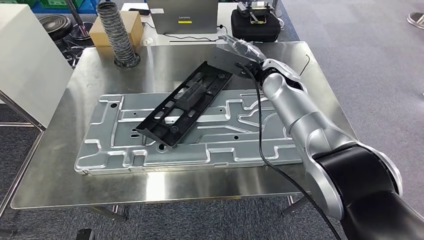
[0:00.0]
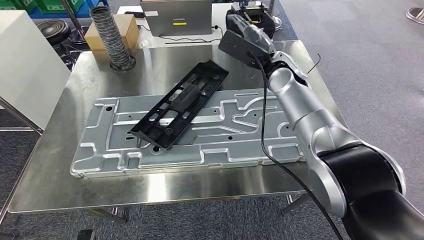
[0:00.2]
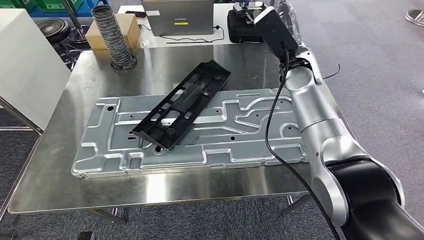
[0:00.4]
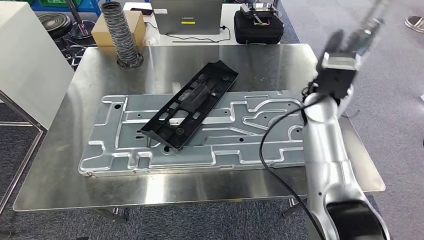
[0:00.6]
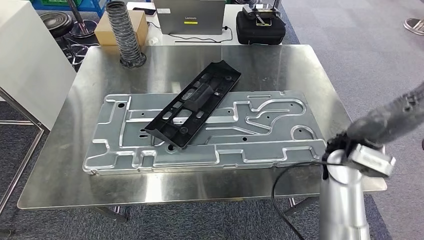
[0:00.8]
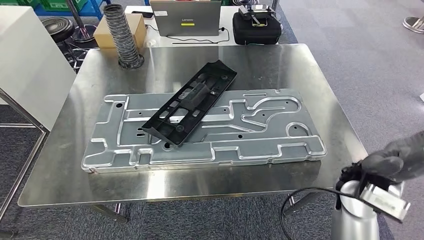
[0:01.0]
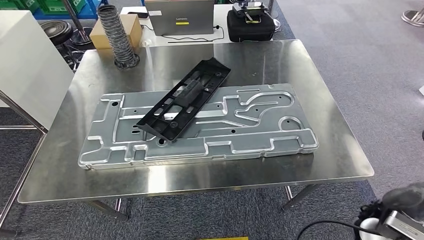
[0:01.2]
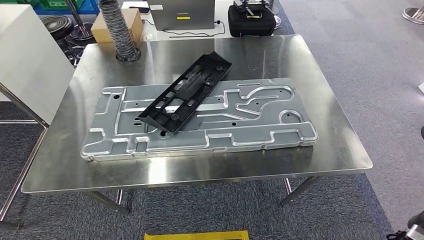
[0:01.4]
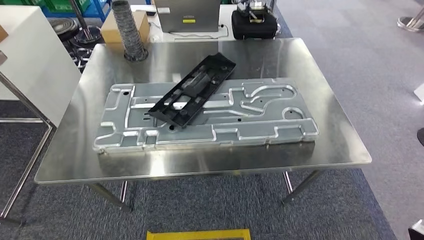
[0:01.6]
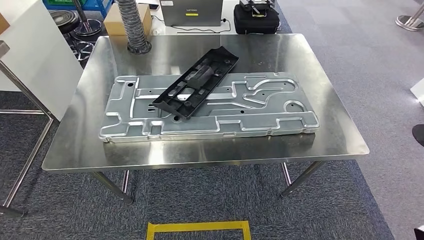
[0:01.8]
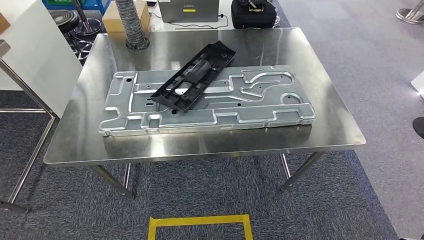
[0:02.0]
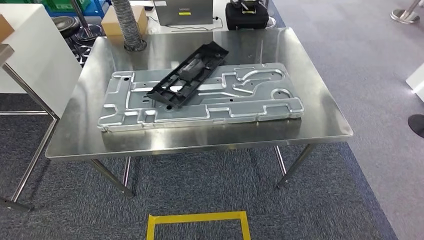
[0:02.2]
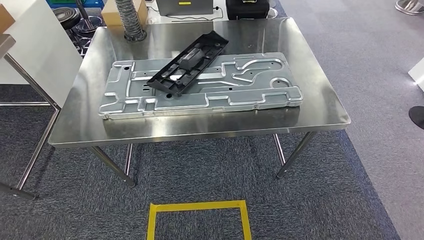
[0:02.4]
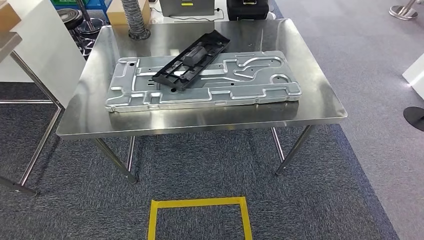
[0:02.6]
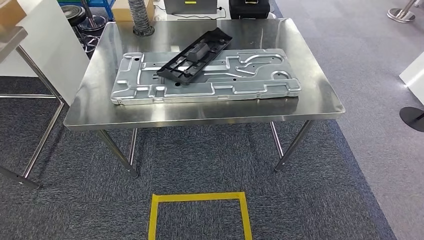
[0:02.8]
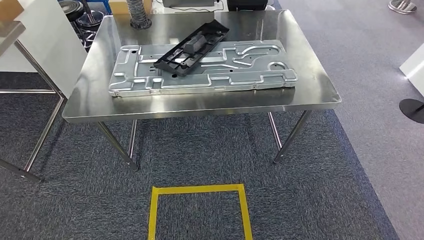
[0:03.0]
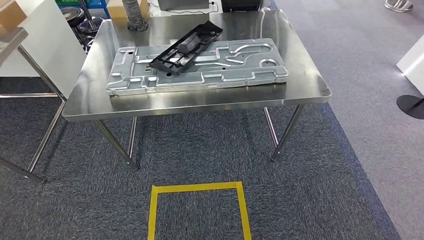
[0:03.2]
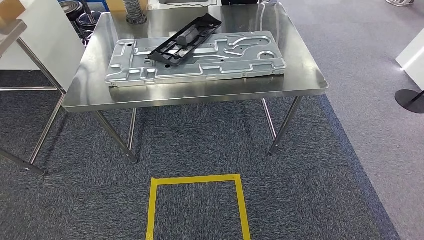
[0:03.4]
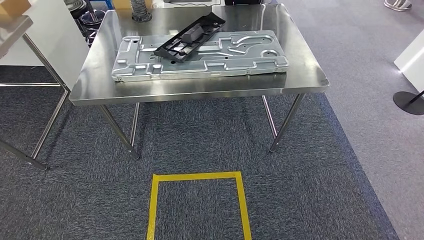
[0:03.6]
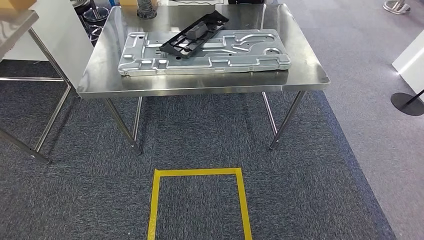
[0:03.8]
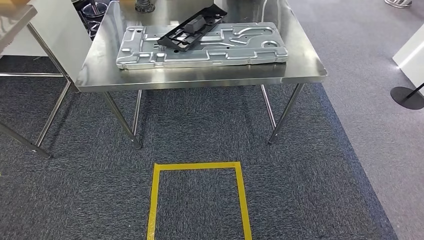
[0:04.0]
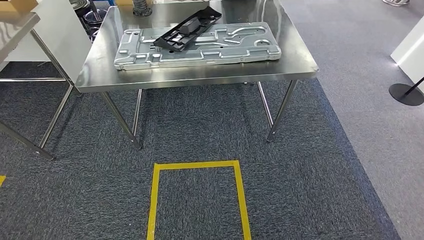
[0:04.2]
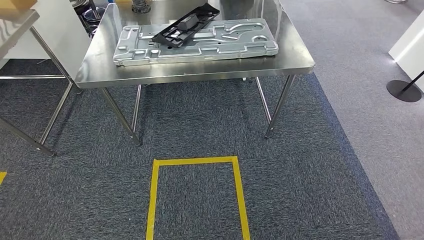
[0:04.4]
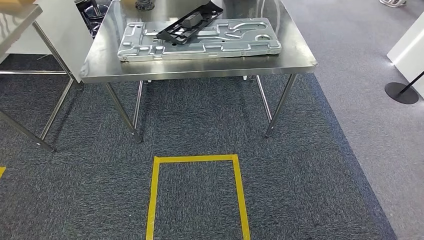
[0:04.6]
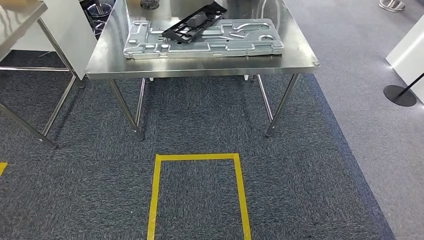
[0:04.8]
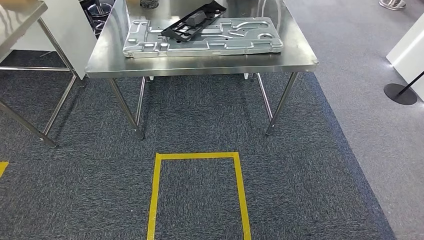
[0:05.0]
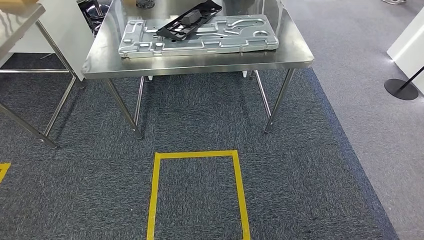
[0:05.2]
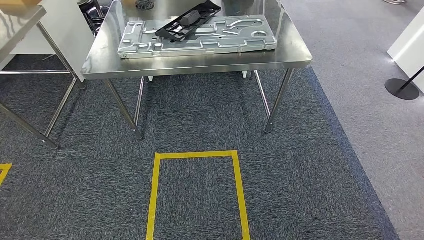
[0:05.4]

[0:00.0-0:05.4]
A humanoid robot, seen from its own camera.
Step, 0:01.2 to 0:05.4: Move to the initial position at the workbench.
